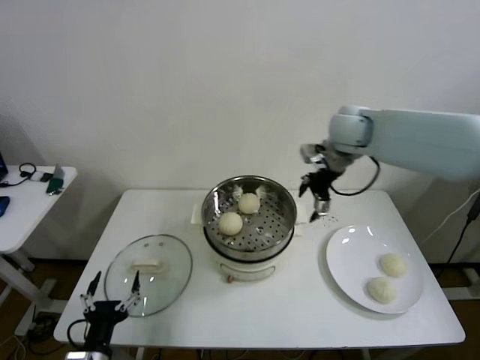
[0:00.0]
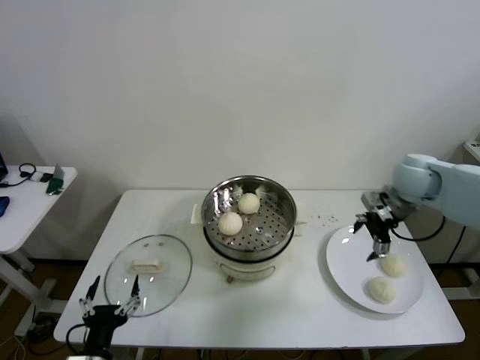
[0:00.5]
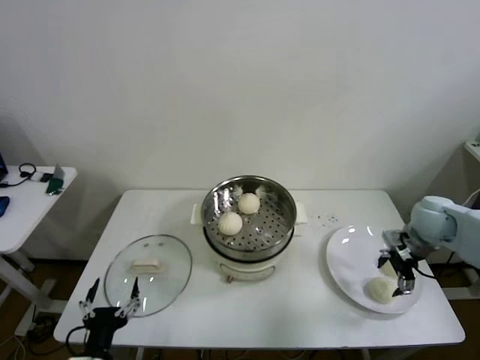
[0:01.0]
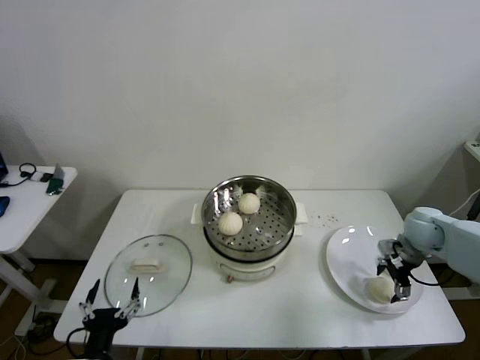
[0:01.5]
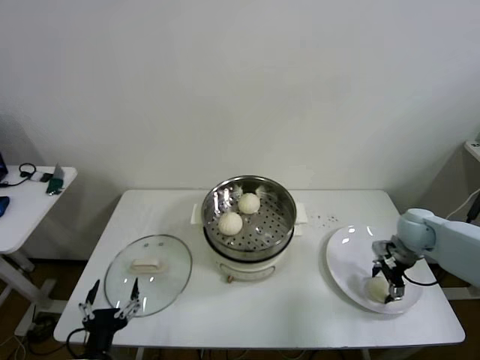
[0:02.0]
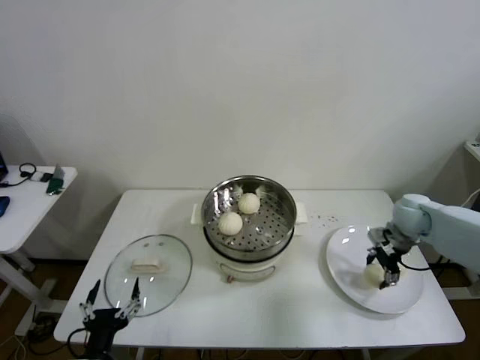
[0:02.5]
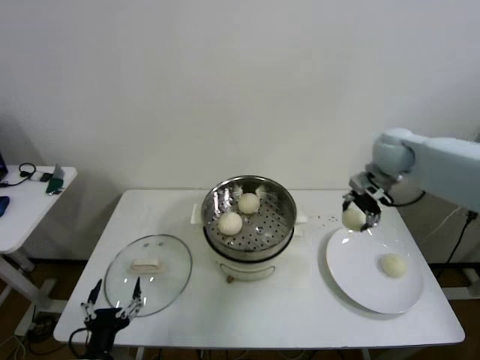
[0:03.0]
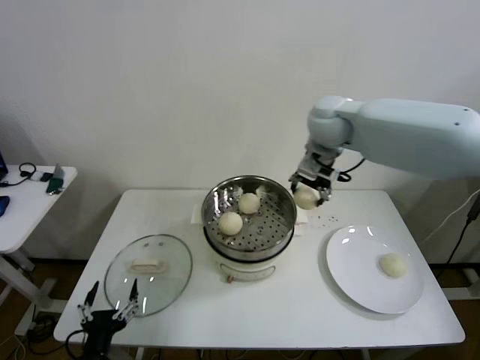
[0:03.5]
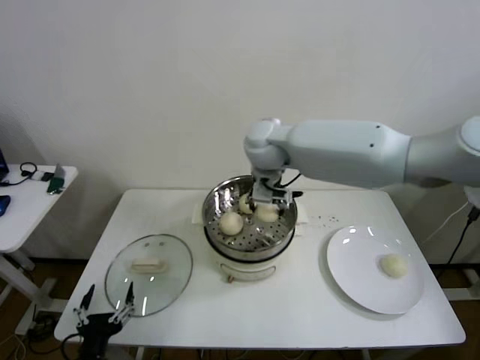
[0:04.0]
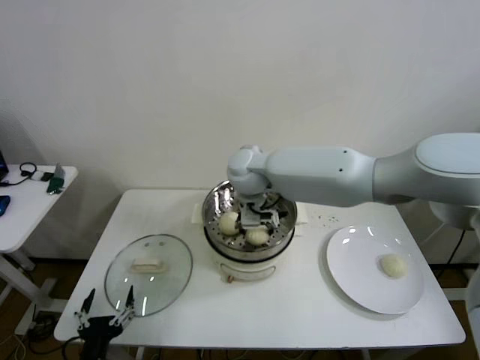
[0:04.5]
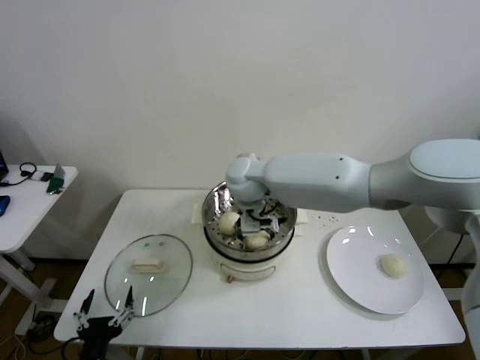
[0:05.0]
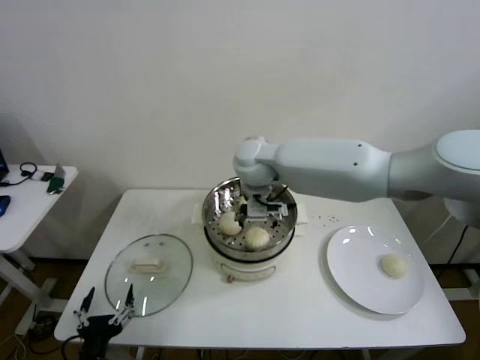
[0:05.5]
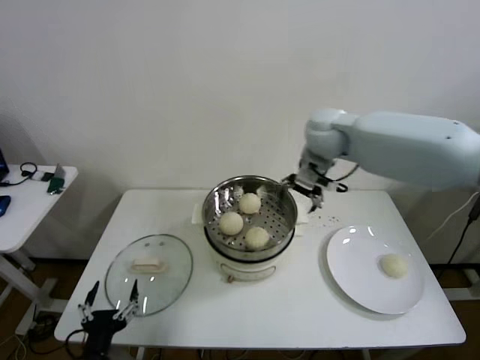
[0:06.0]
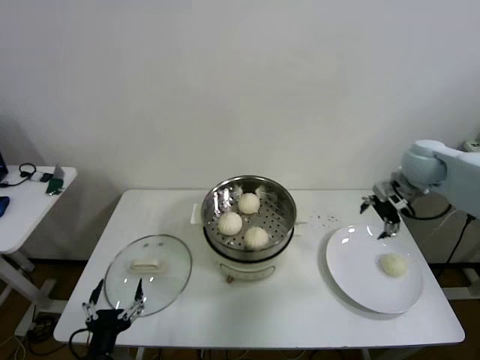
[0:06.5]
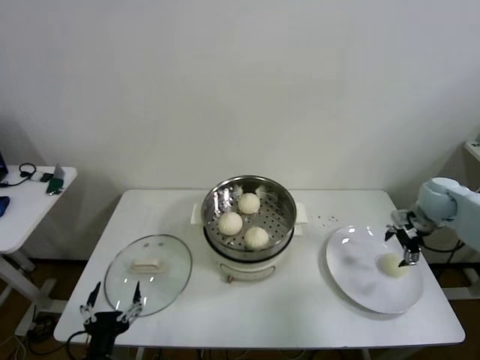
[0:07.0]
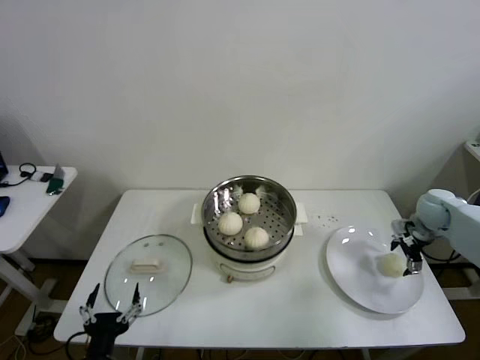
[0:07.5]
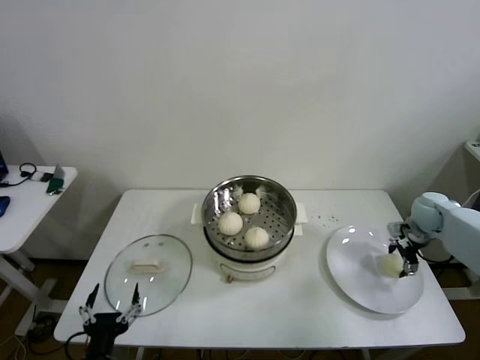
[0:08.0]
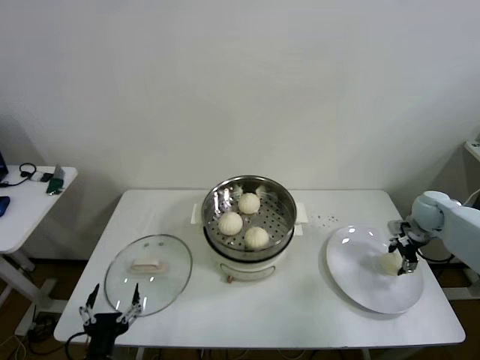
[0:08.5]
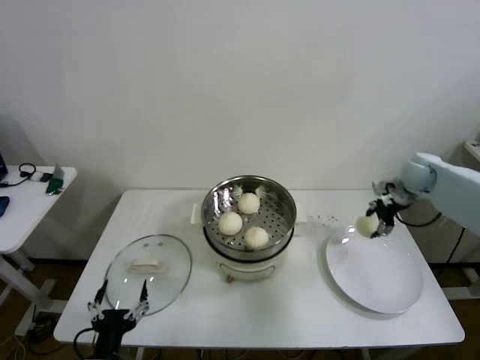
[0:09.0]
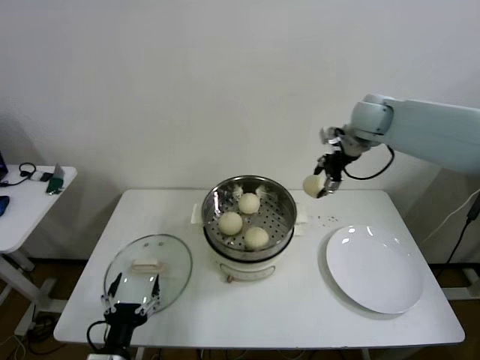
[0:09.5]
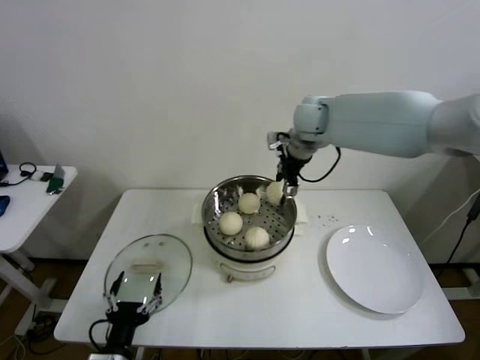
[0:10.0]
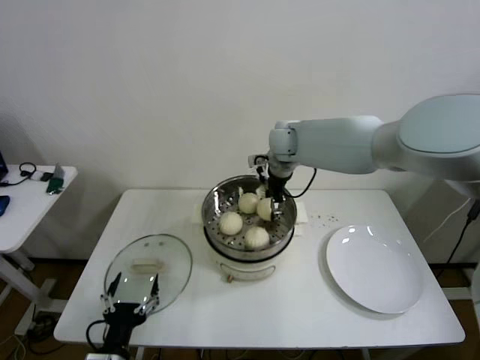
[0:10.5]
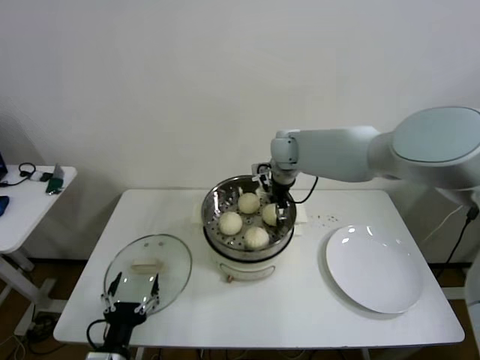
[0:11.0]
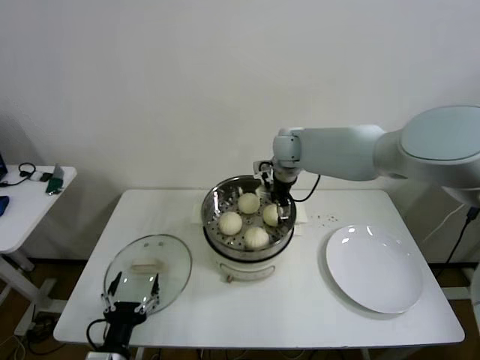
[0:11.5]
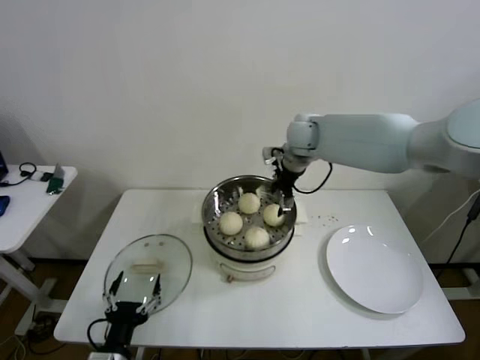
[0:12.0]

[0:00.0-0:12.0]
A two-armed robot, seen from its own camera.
Step, 0:00.0 to 0:02.0: Grasp the baozi in the plate with right gripper.
Step, 0:02.5 to 0:05.0: Place the baozi on the steamer with right gripper.
Step, 0:05.5 to 0:08.0: Grasp the baozi in the plate with right gripper.
Step, 0:08.5 to 0:11.5: Place the baozi on the steamer with right gripper.
0:00.0 to 0:02.0: The right gripper goes approximately 30 cm downward and to the right.
0:02.0 to 0:04.0: The right gripper travels to the left and upward by approximately 40 cm, and closes its fingers.
0:04.0 to 0:06.0: The right gripper moves to the right, about 15 cm, and opens its fingers.
0:06.0 to 0:08.0: The right gripper is displaced to the right and downward by some 35 cm, and closes its fingers.
0:08.0 to 0:10.0: The right gripper goes approximately 40 cm to the left and upward, and closes up.
0:10.0 to 0:12.0: The right gripper opens.

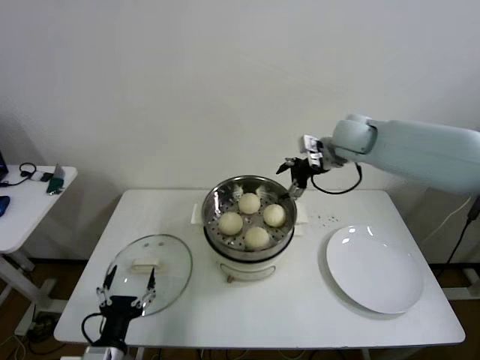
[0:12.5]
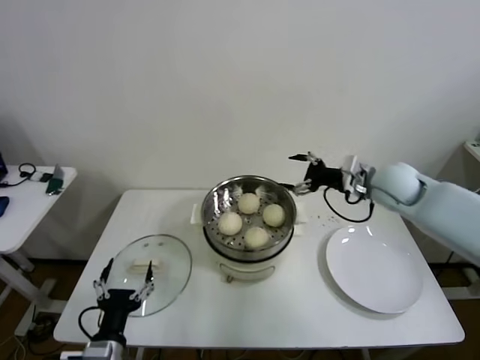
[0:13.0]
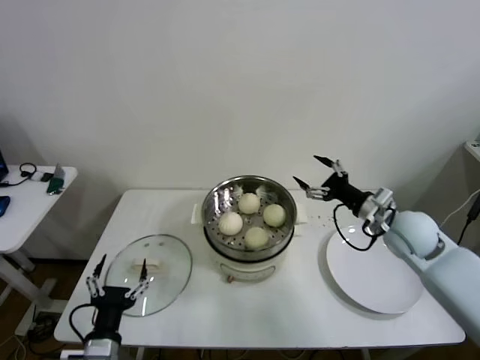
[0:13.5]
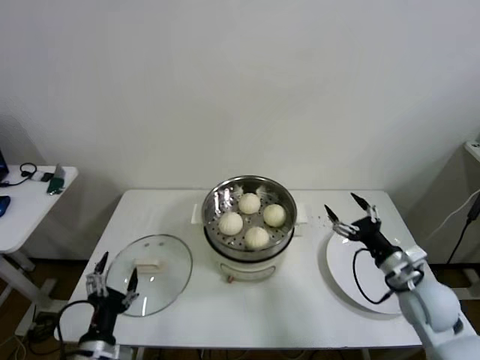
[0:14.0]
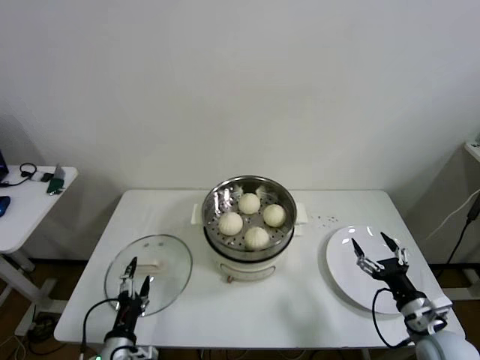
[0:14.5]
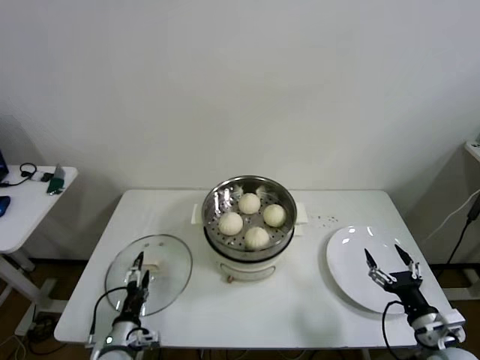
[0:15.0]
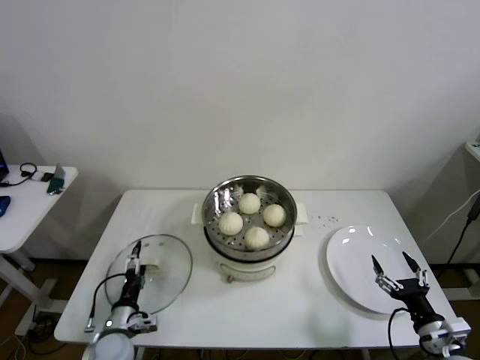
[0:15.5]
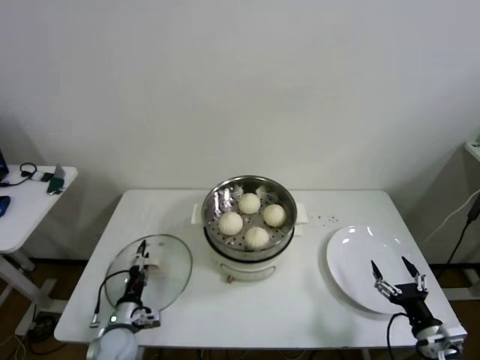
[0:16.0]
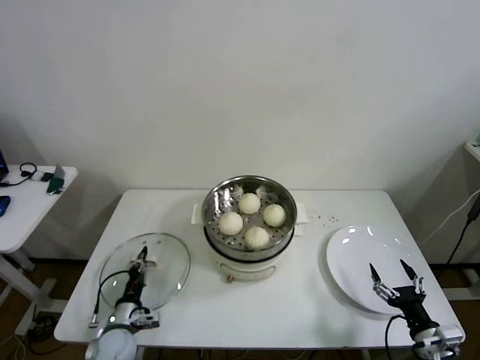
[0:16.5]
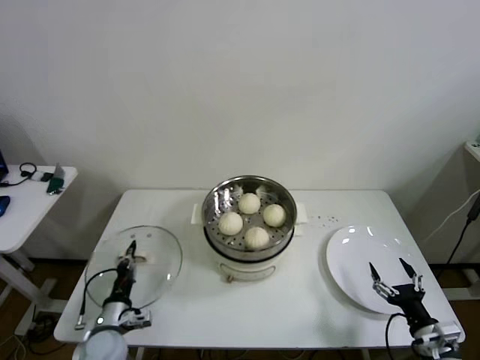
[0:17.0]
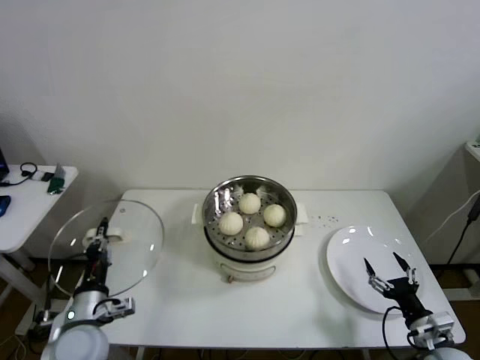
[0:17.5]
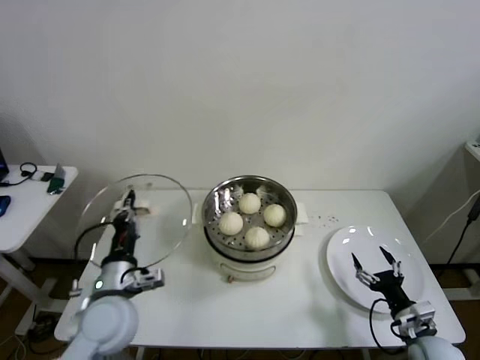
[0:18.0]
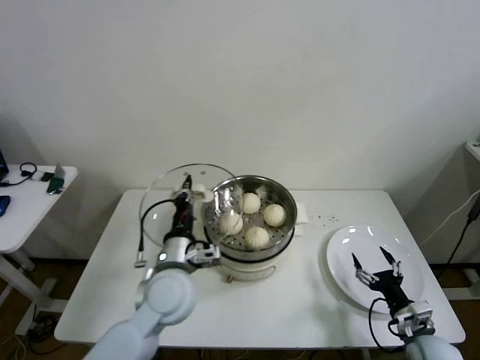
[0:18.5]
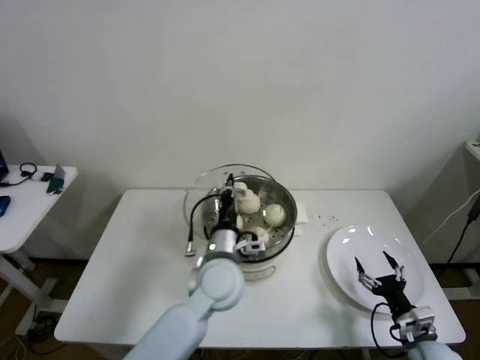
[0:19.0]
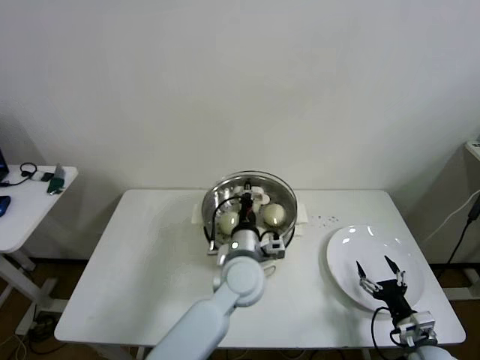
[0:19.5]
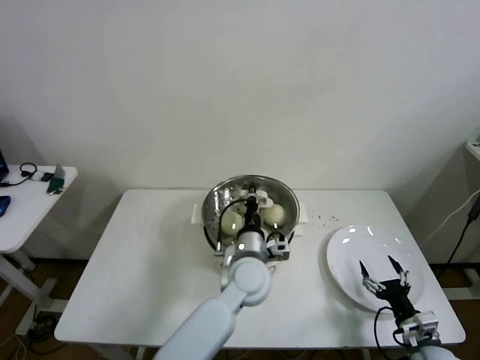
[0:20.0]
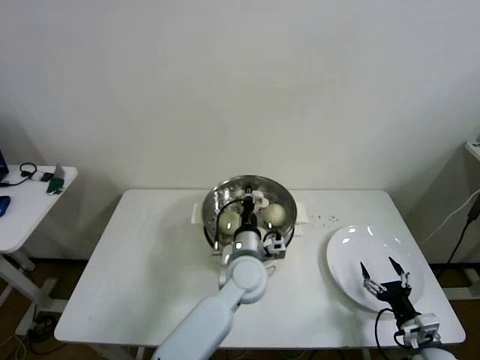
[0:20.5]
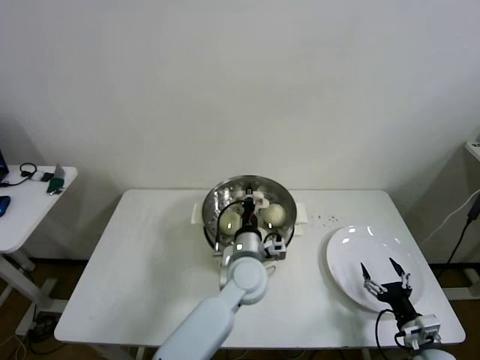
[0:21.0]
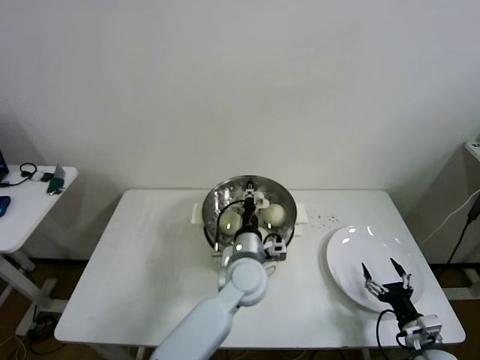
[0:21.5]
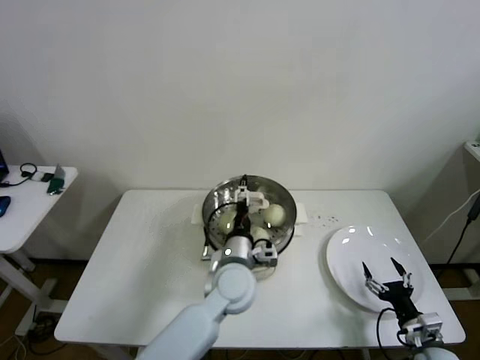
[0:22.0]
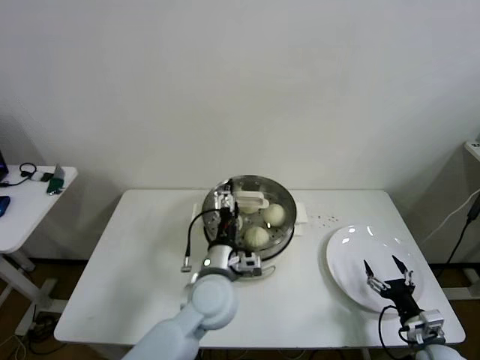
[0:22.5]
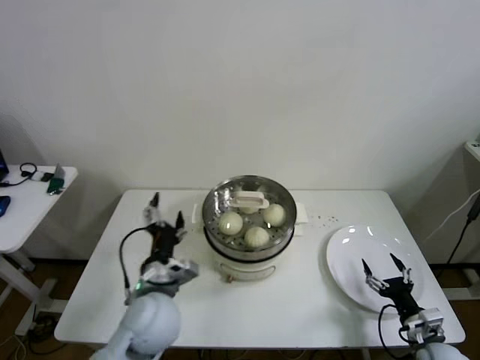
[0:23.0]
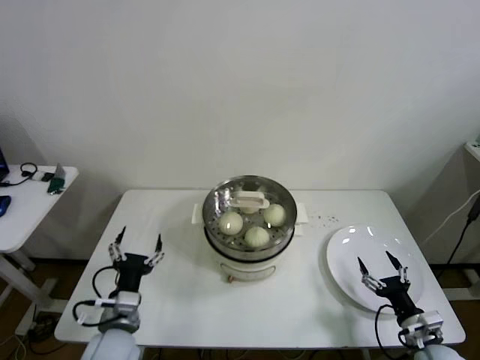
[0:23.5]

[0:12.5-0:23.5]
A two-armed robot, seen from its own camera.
Step, 0:12.5 to 0:16.0: Grasp the pot lid with left gripper.
Step, 0:17.0 to 0:21.0: Place the pot lid on the steamer with left gripper.
0:12.5 to 0:14.5: The right gripper moves backward, downward and to the right, some 50 cm. The left gripper heads downward, covering approximately 5 cm.
0:14.5 to 0:16.0: The left gripper shifts approximately 10 cm forward and downward. The right gripper changes place by roughly 5 cm.
0:16.0 to 0:18.0: The right gripper changes place by approximately 5 cm. Meanwhile the left gripper goes about 20 cm upward, and closes its fingers.
0:18.0 to 0:20.0: The left gripper moves to the right, approximately 25 cm.
0:20.0 to 0:21.5: The grippers stay close to where they were, moving slightly.
0:21.5 to 0:23.5: The left gripper is displaced to the left and backward by approximately 30 cm, and opens its fingers.
